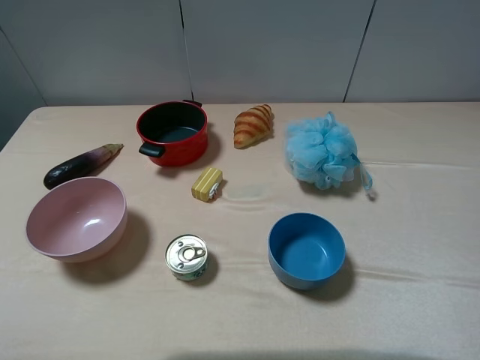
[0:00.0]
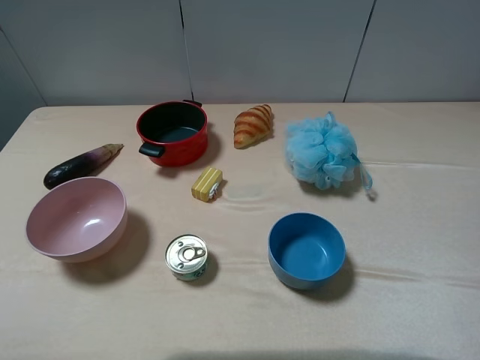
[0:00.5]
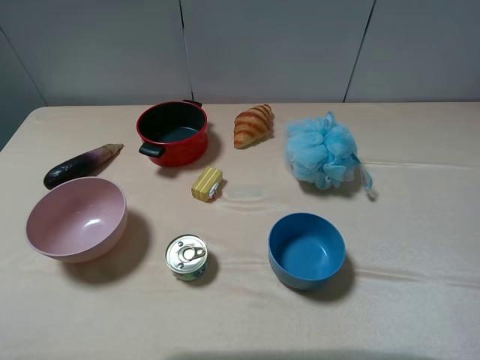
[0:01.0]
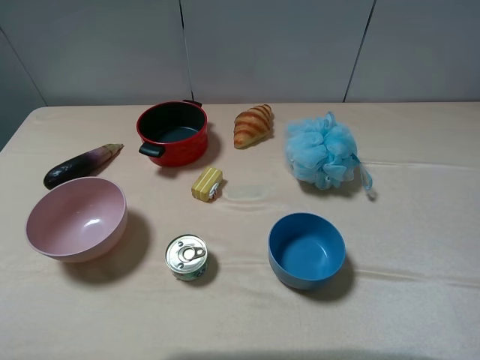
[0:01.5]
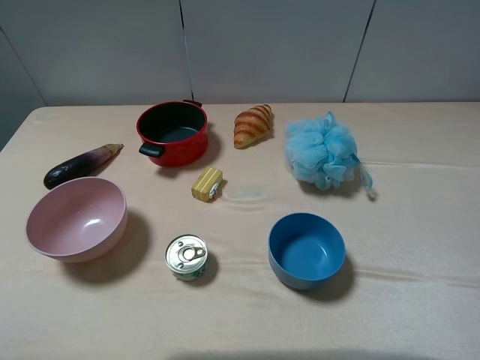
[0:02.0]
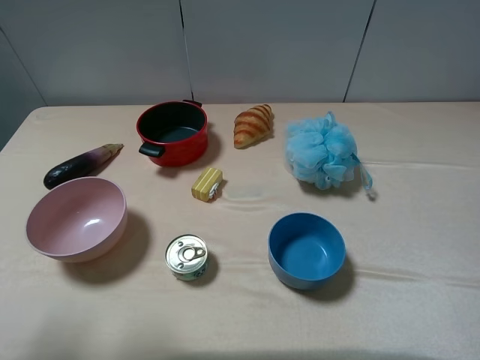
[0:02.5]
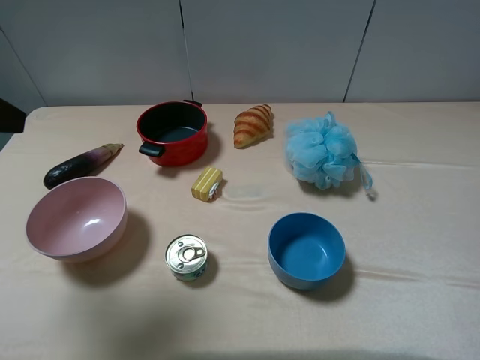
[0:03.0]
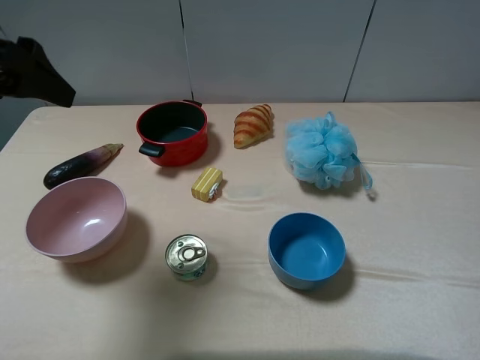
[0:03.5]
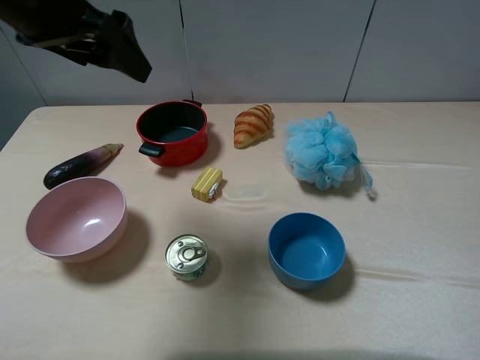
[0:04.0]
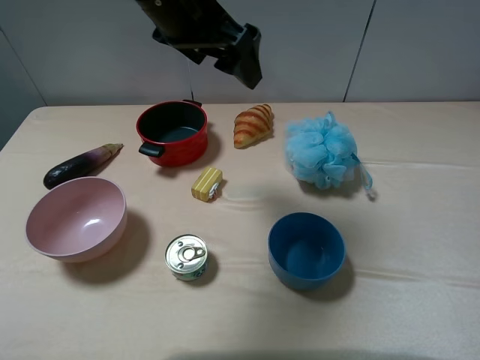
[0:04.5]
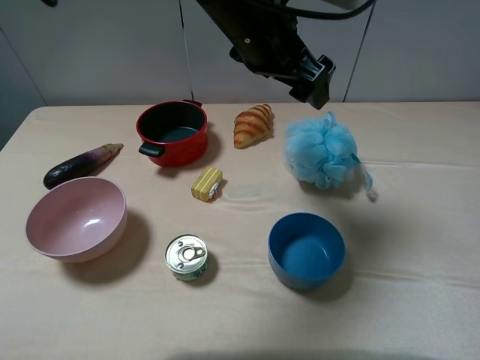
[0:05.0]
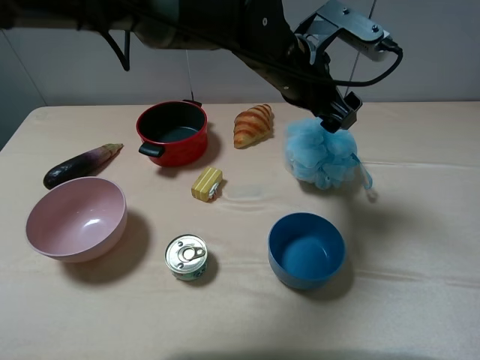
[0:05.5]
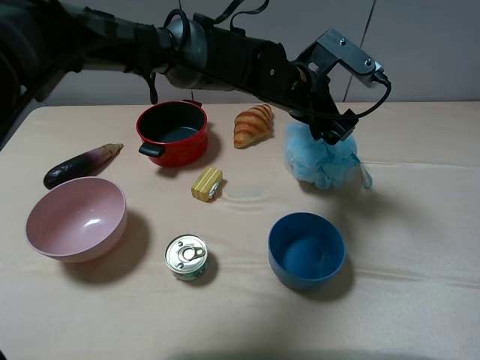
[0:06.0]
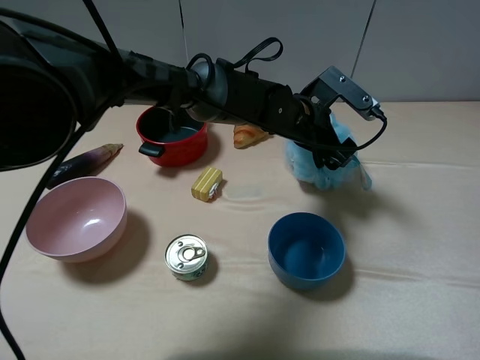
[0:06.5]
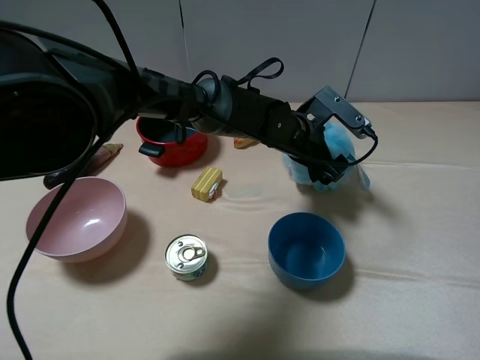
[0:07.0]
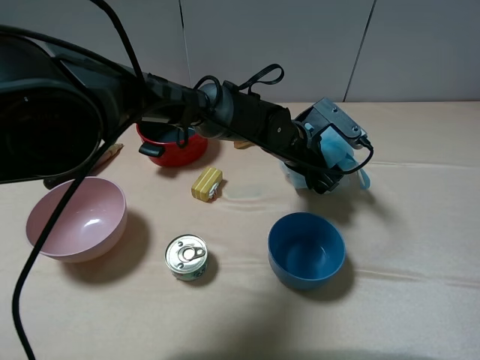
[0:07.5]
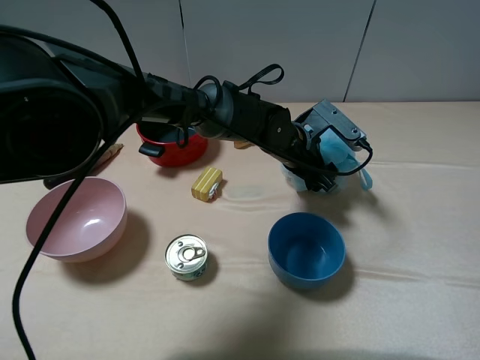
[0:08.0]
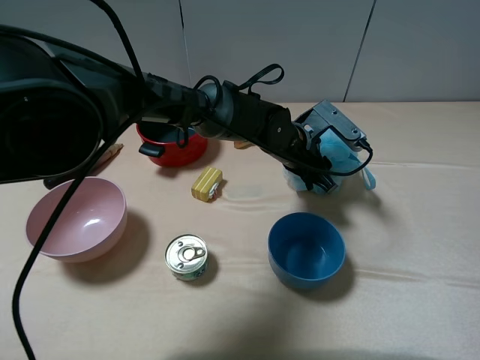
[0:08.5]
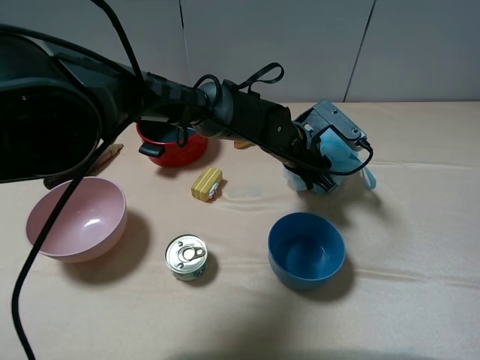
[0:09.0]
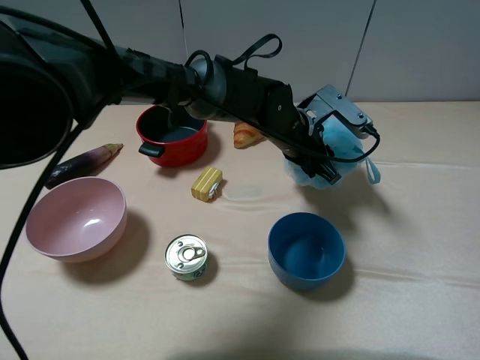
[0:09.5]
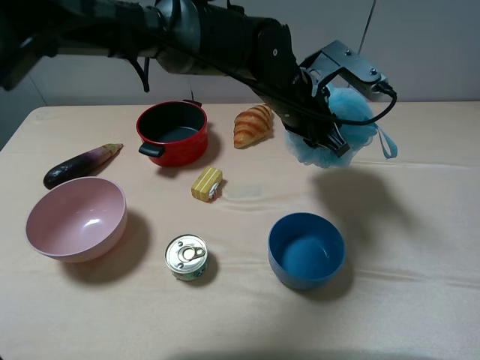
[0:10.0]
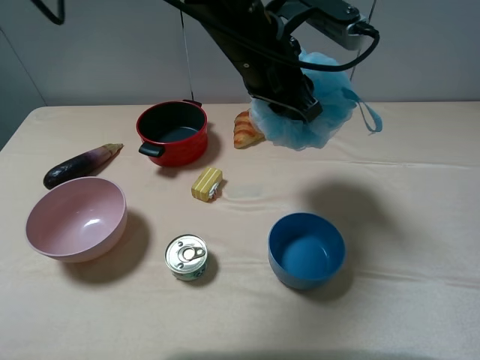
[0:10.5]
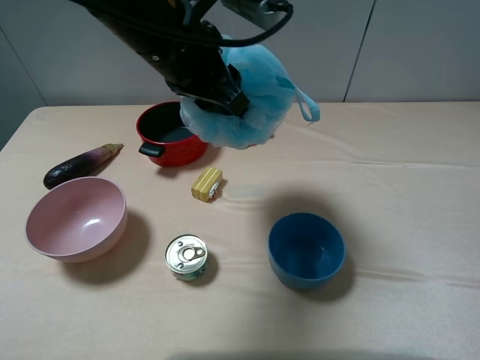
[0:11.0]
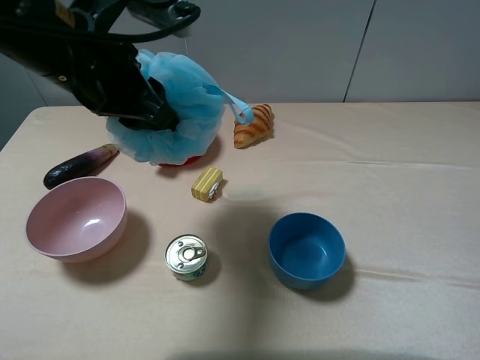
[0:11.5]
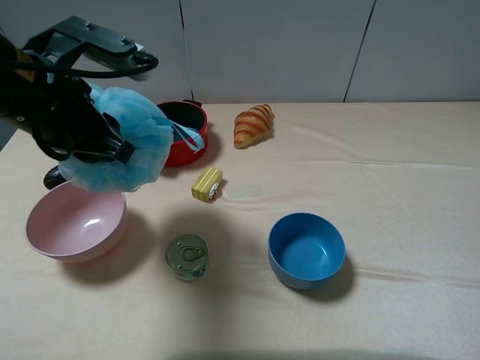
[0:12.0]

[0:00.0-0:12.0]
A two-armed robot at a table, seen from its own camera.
Task of the whole recording: pick up an item with a gripper and place it in a random container on the table.
Step, 0:00.0 to 0:08.5: Grasp the shower sphere with the left gripper.
0:00.0 to 0:02.0: Both grippers stay put.
0:02.0 to 0:04.0: The left gripper is displaced forward and to the right by approximately 30 cm.
0:04.0 to 0:06.0: The left gripper moves to the right and downward, approximately 30 cm.
0:06.0 to 0:08.0: The left gripper moves downward, roughly 10 cm.
0:08.0 to 0:10.0: The left gripper is displaced upward by about 10 cm, and closes.
0:10.0 to 0:12.0: The left gripper travels to the left and backward by approximately 25 cm.

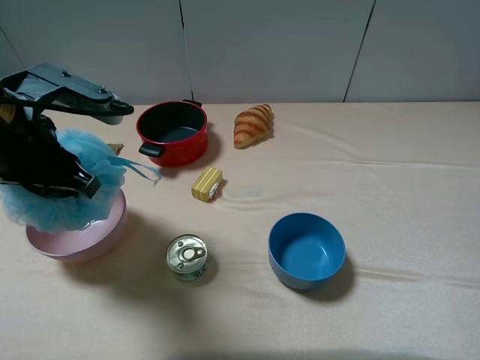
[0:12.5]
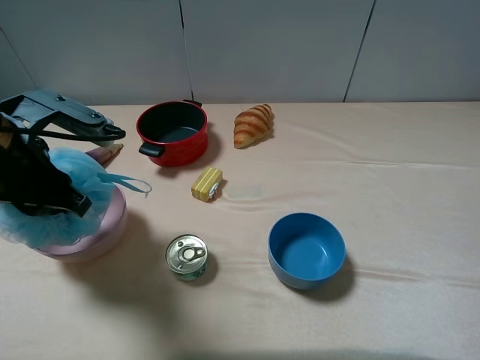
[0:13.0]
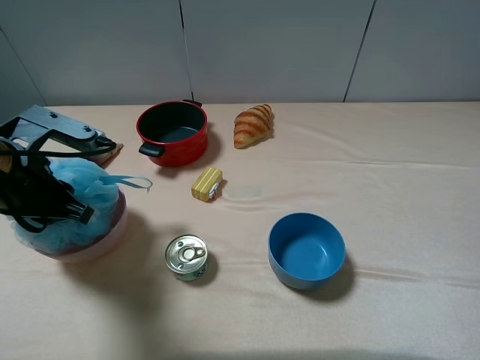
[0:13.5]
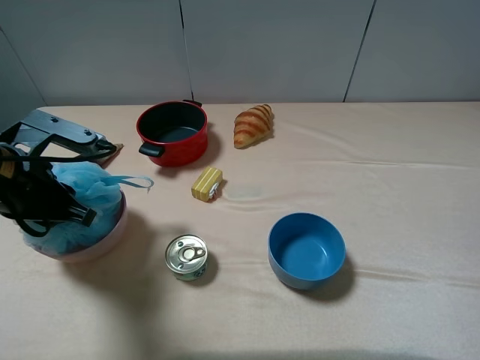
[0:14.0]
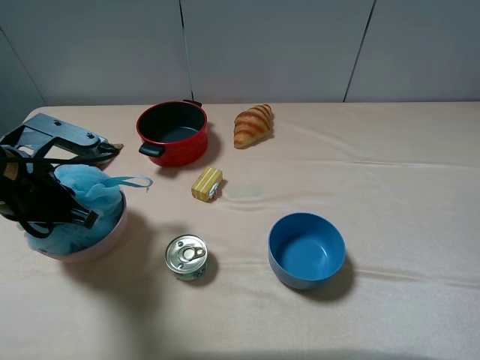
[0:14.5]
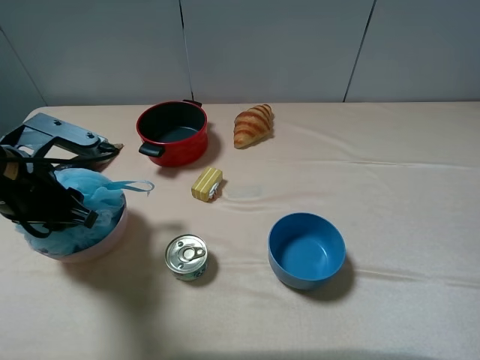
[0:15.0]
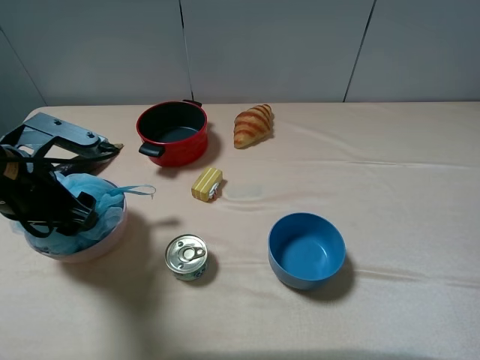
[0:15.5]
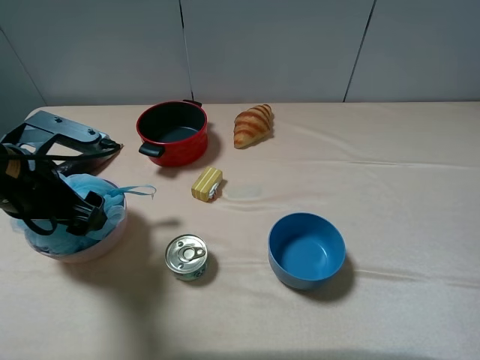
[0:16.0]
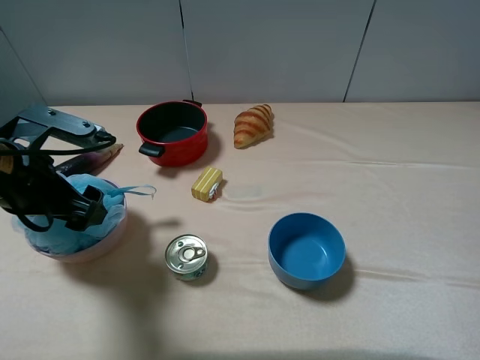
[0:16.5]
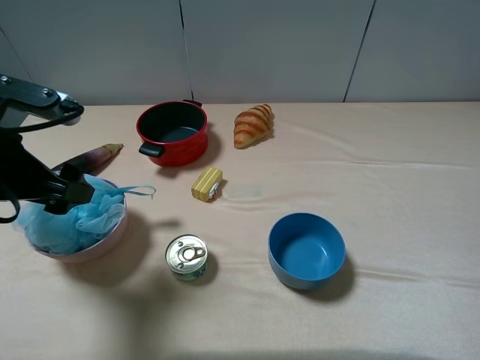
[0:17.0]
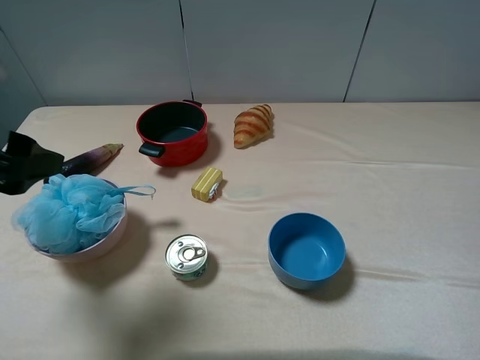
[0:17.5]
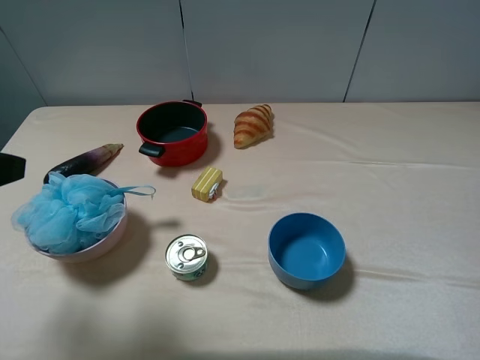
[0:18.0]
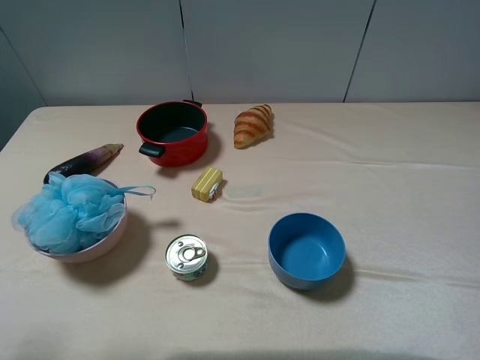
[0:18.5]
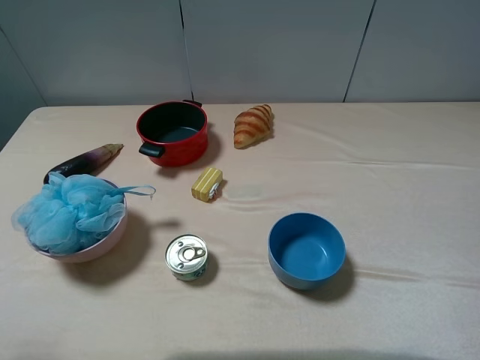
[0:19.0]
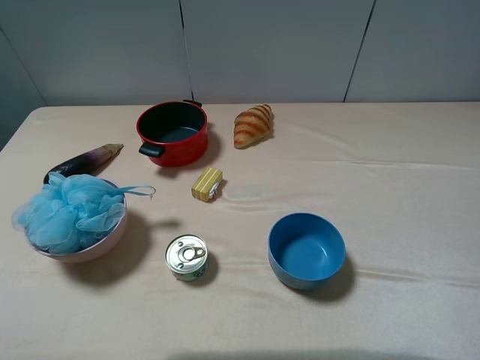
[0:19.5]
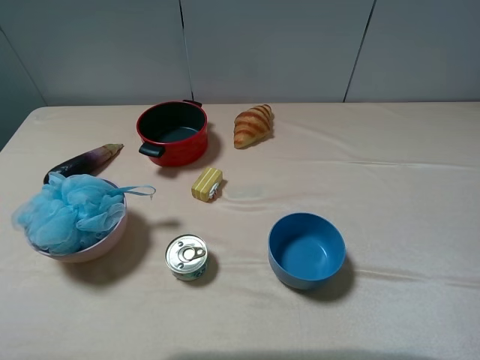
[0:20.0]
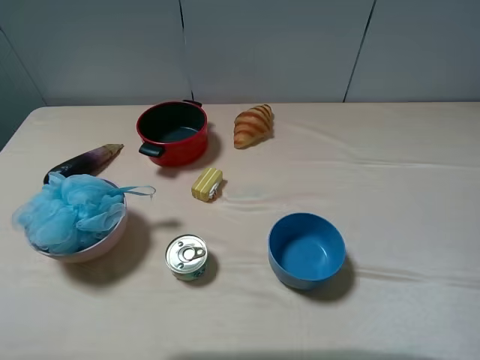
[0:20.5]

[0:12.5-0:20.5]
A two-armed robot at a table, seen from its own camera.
Task of the whole recording: pick up an item with a gripper and place it in a random container on the table.
Step, 0:12.5 to 0:16.0: Place the shower sphere into the pink bowl with the left gripper.
0:12.5 to 0:14.5: The left gripper is displaced downward by approximately 5 cm.
0:14.5 to 0:16.5: The left gripper opens up.
0:16.5 to 0:18.5: The left gripper shifts roughly 20 cm backward, upward and to the left.
